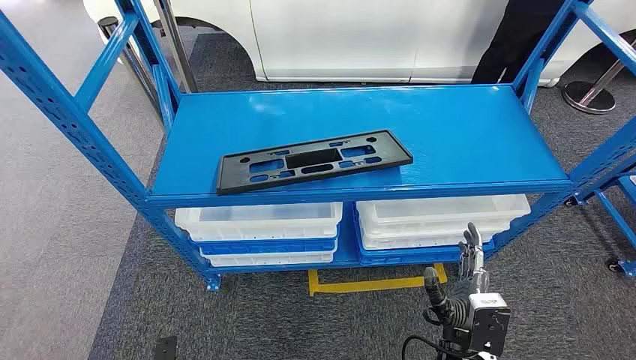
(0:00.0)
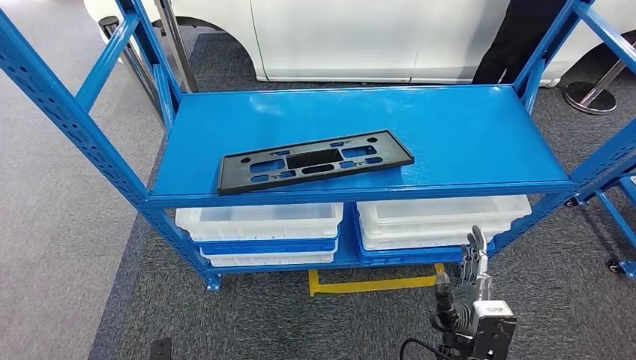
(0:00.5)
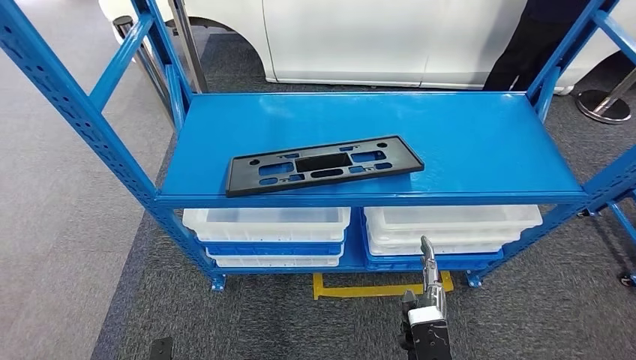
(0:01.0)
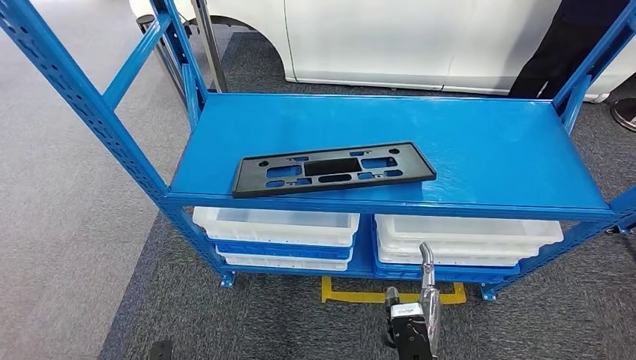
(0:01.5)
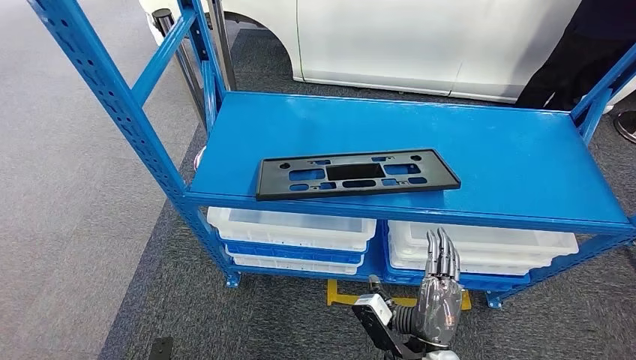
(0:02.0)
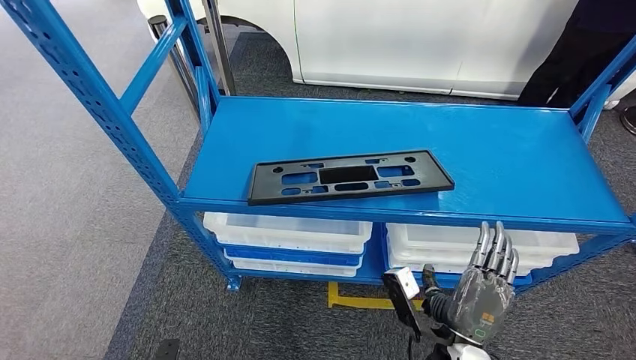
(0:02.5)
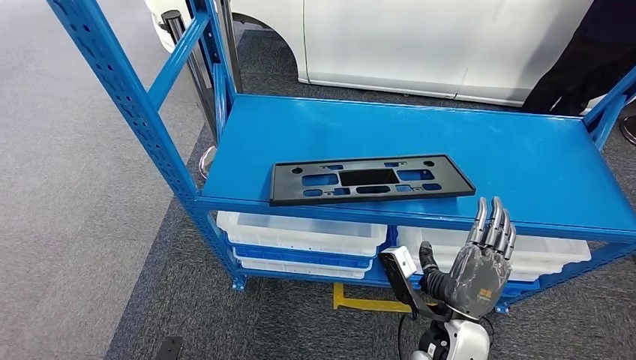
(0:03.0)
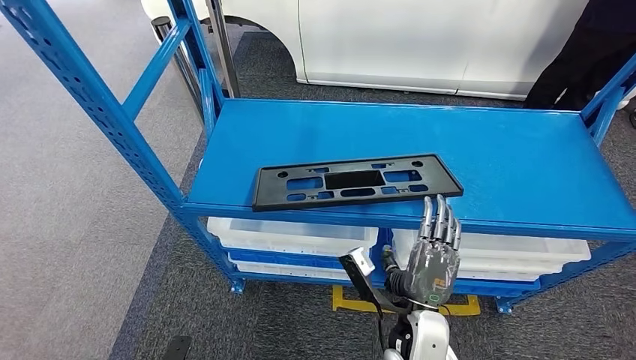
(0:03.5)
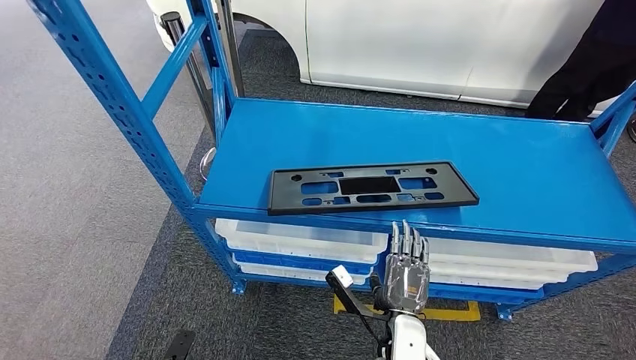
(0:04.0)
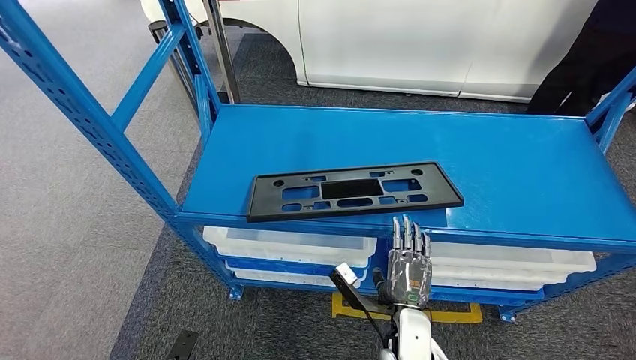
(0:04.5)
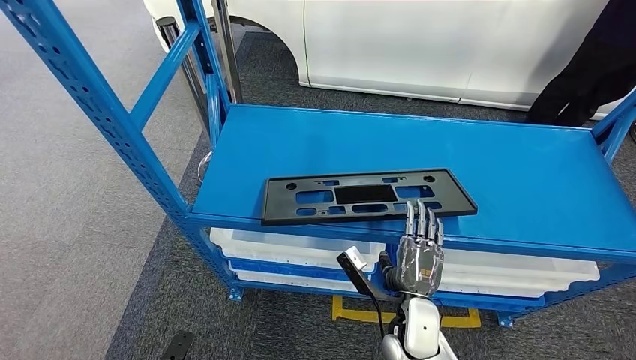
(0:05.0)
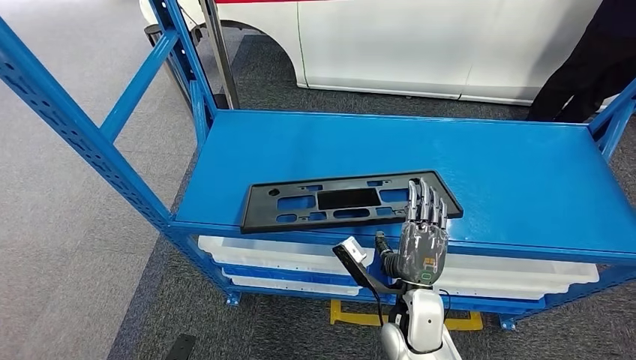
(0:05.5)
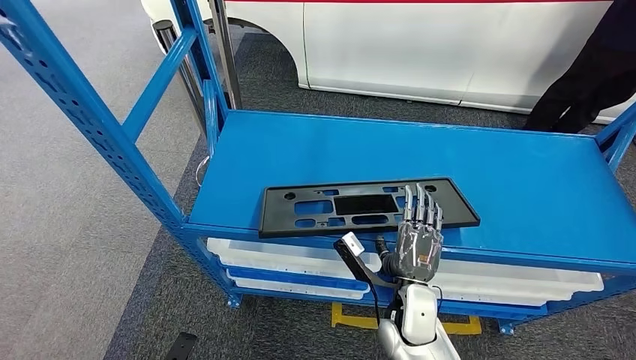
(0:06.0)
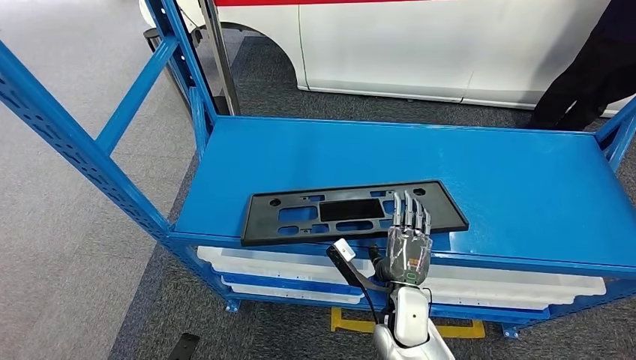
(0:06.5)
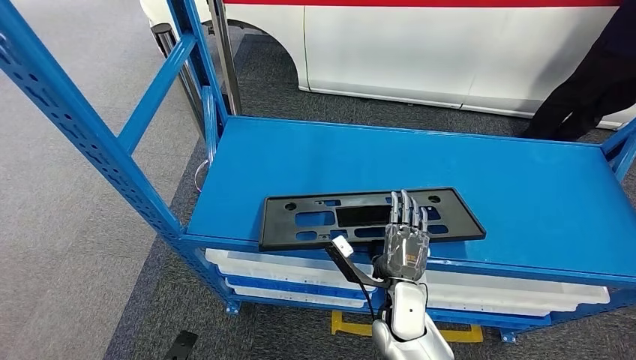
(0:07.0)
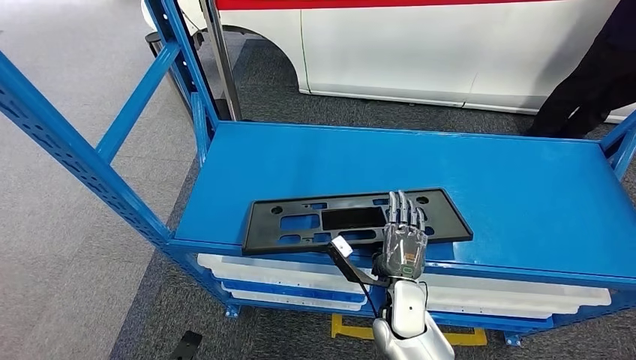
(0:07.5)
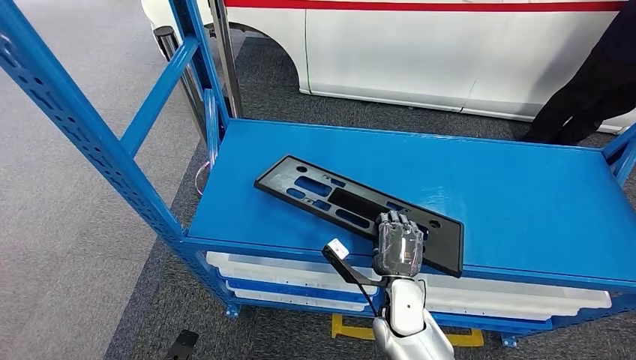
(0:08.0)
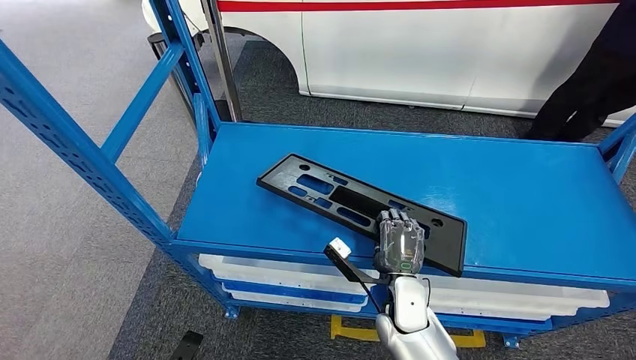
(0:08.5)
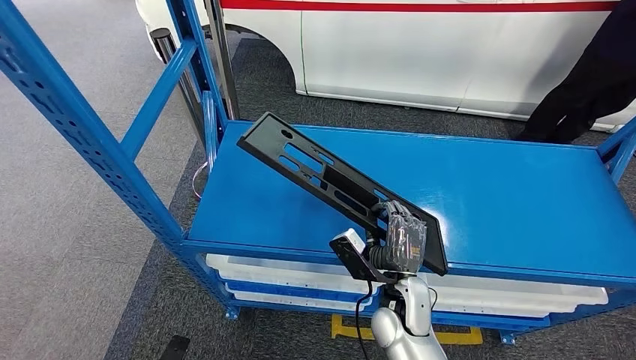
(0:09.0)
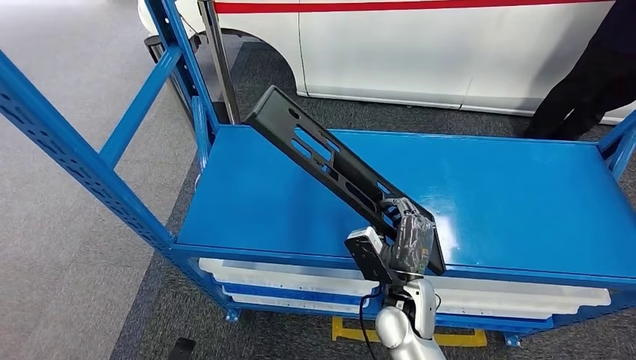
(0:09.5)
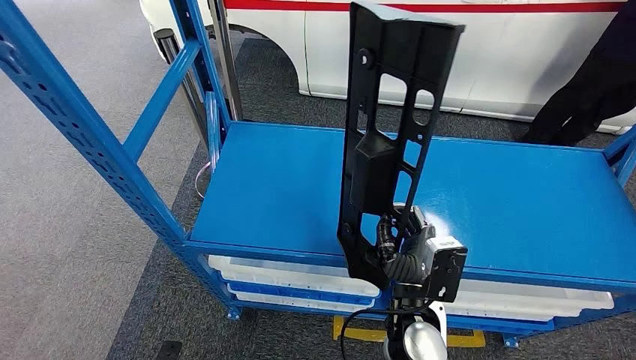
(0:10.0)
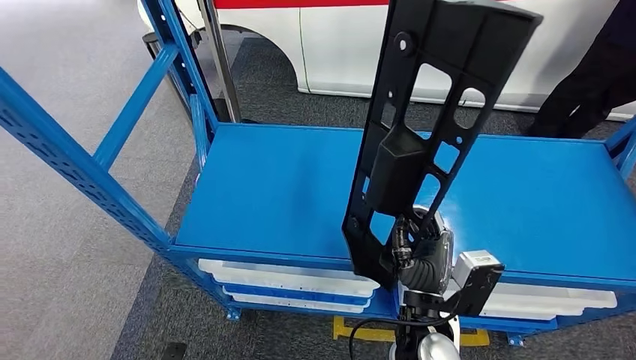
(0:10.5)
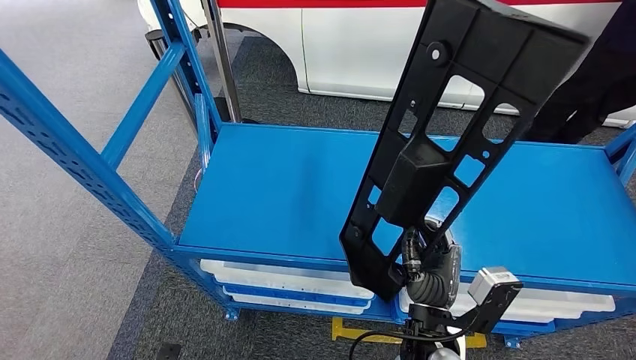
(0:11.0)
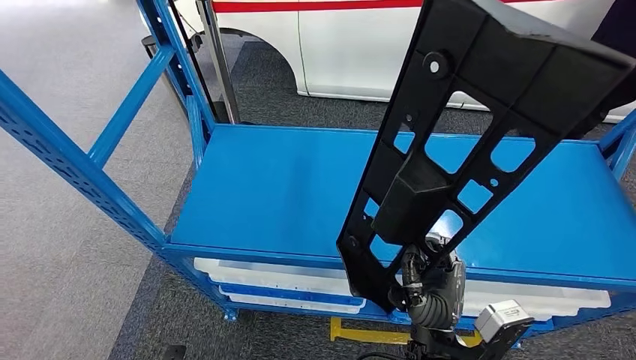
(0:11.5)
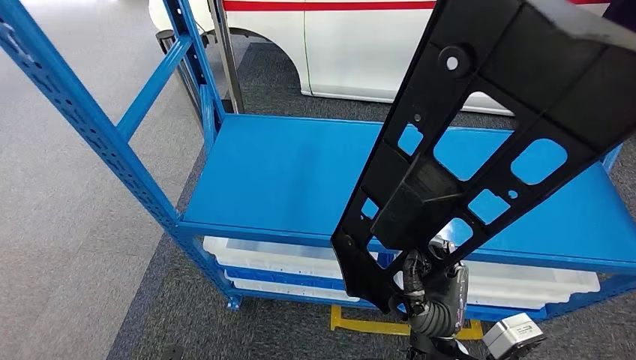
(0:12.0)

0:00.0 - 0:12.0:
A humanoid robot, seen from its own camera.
Step, 0:00.0 - 0:10.0: Pick up the large material from the shelf.
0:08.0 - 0:10.0: The right hand travels upward by some 10 cm.

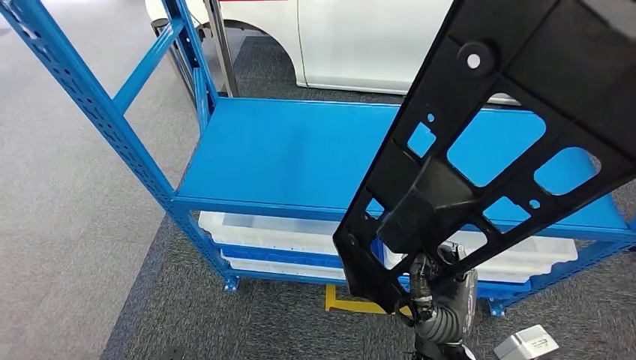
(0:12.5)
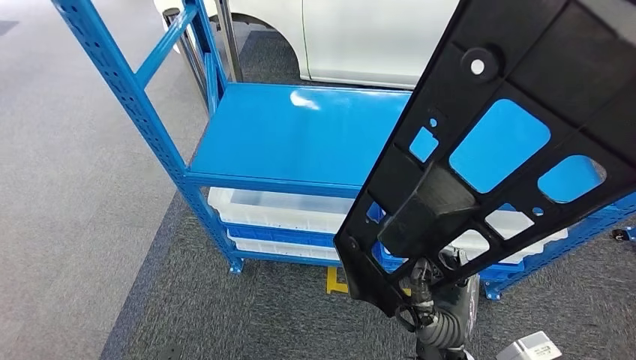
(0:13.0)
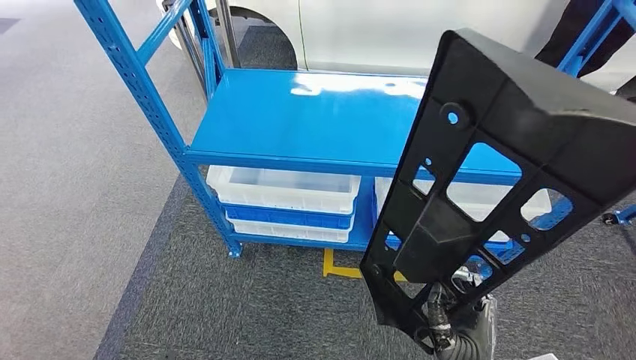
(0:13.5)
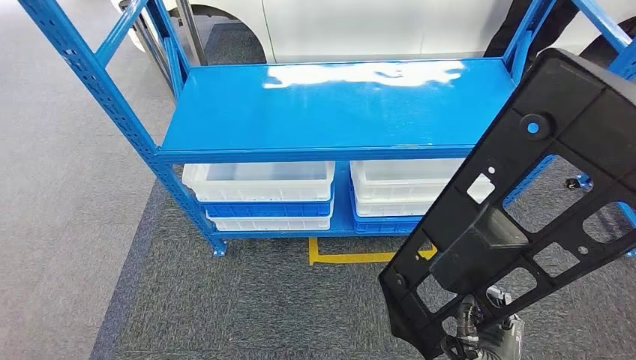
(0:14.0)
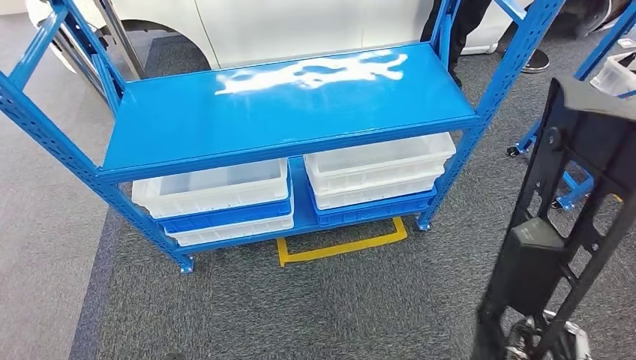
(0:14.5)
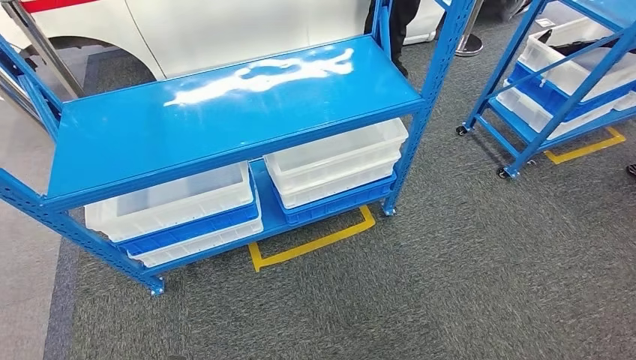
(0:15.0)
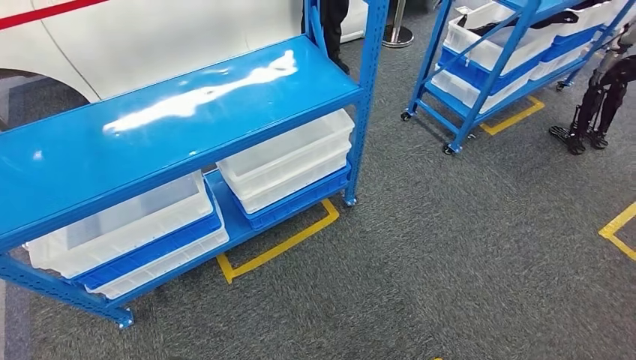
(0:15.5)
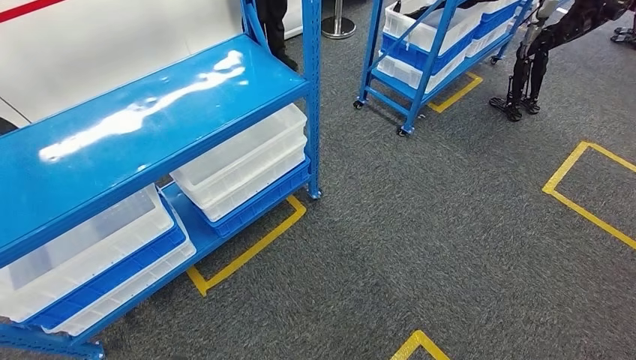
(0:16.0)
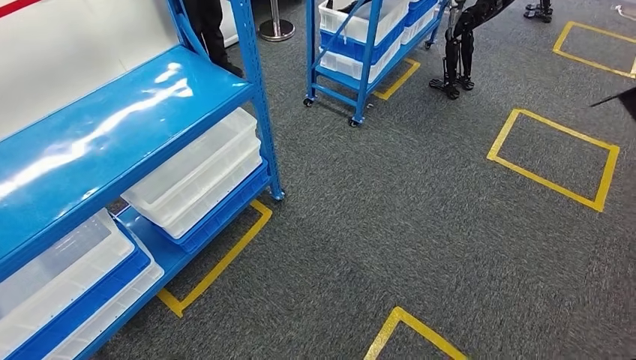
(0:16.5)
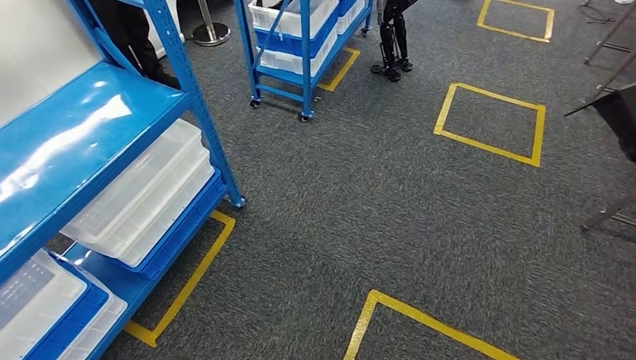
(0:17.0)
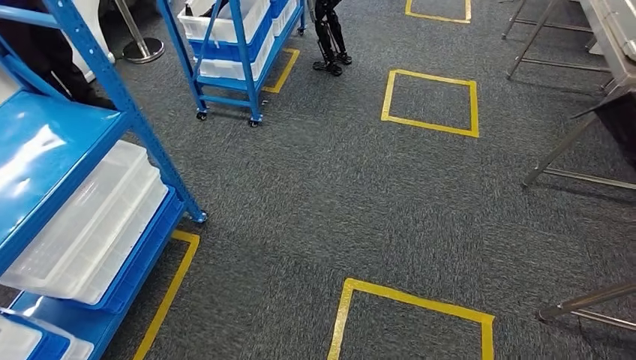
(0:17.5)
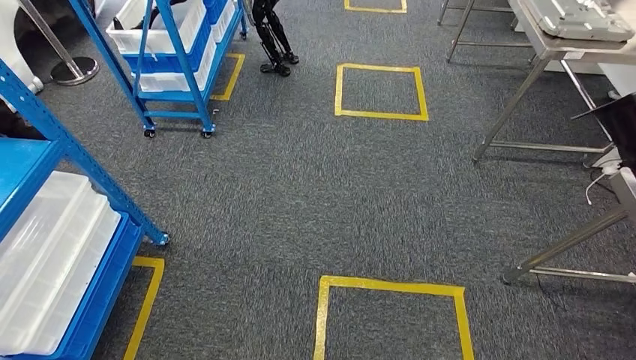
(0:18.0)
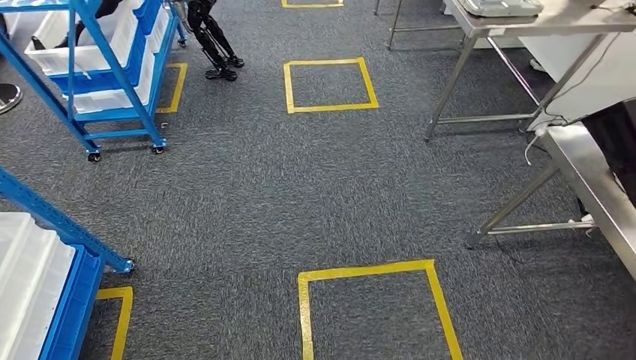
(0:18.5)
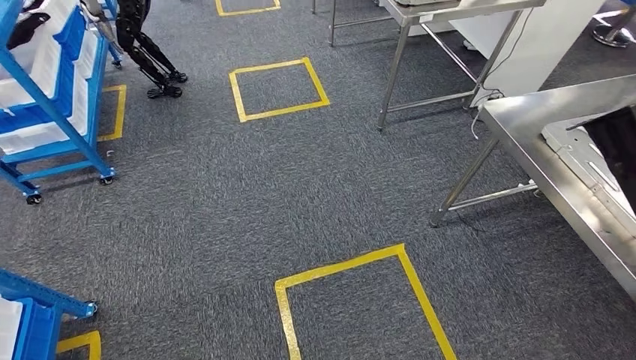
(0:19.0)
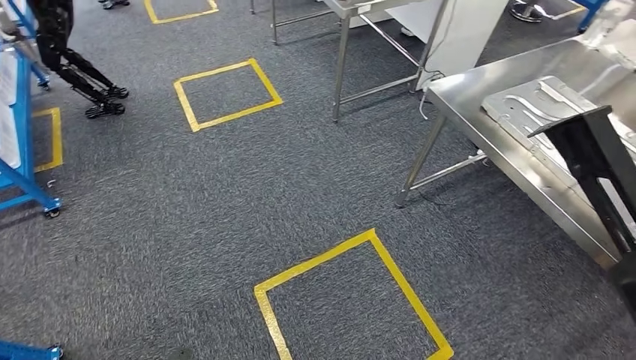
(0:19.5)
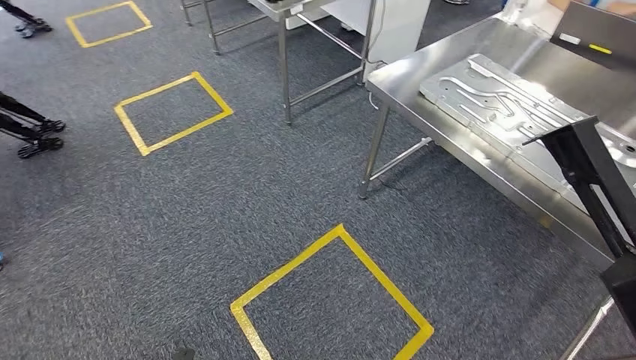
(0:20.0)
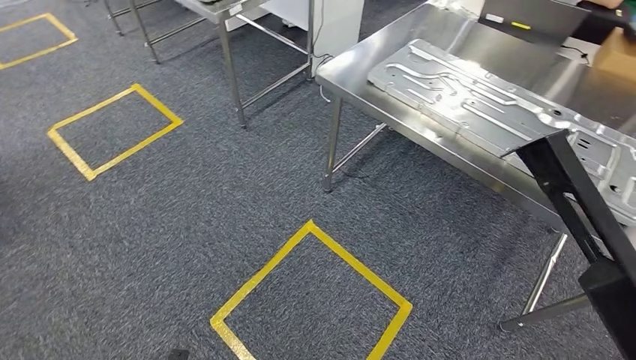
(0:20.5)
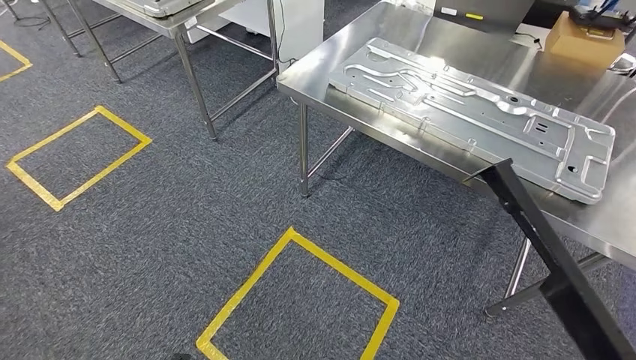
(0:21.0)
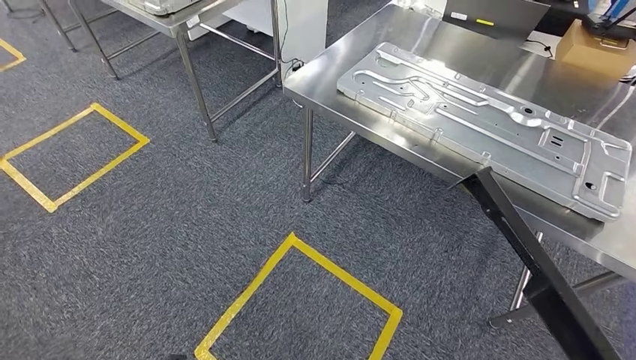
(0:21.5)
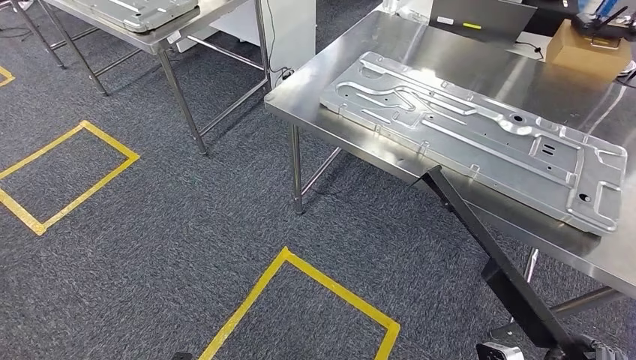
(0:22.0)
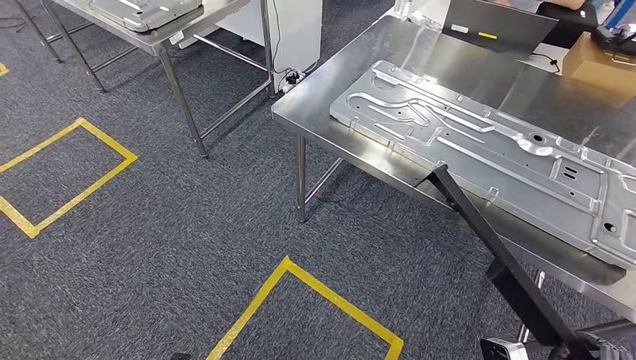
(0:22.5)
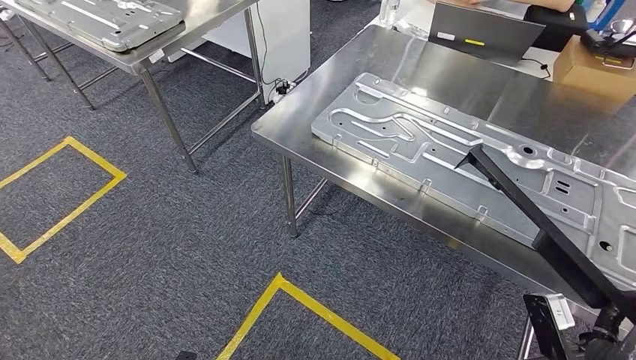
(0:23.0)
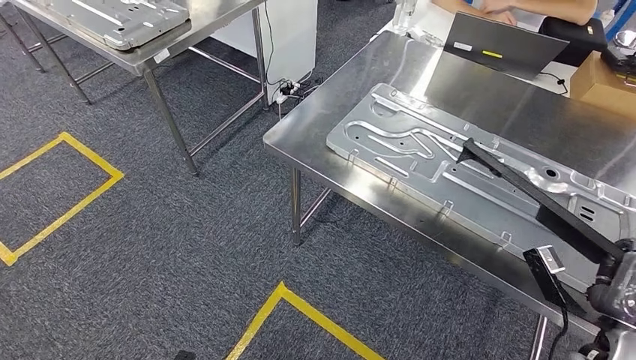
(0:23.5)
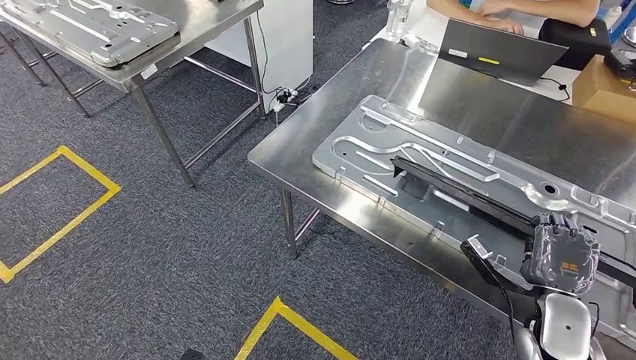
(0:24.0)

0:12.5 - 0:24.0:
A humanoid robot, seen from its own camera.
Step, 0:14.5 - 0:24.0: Move the large material to the workbench.
